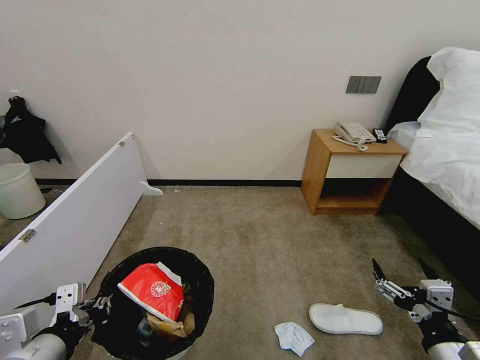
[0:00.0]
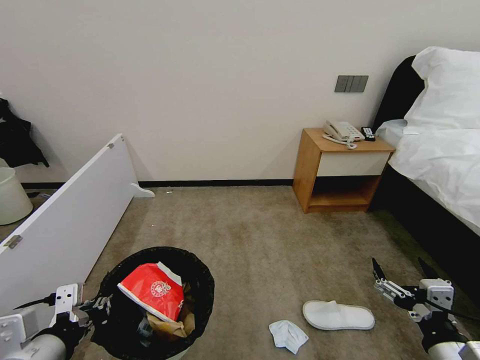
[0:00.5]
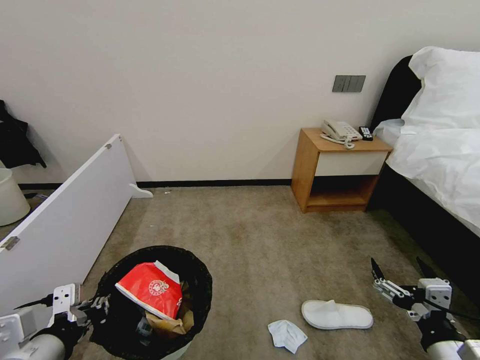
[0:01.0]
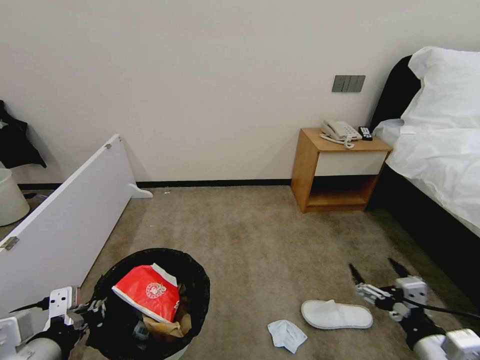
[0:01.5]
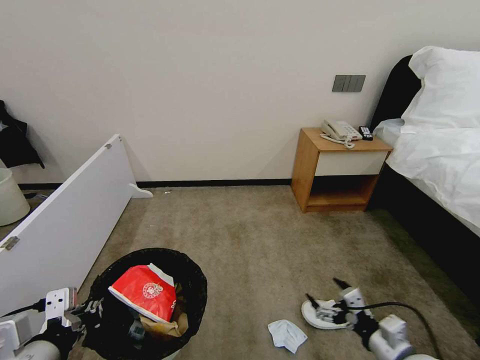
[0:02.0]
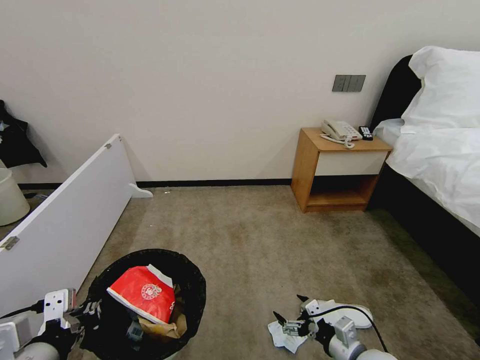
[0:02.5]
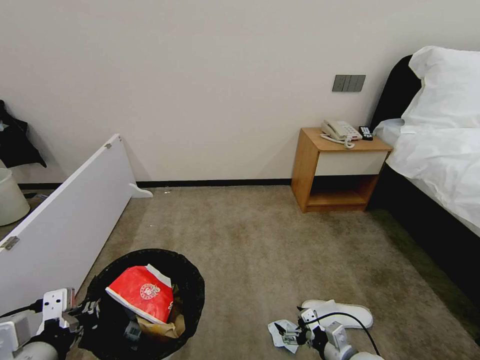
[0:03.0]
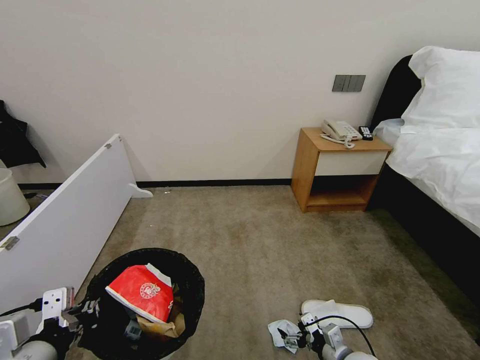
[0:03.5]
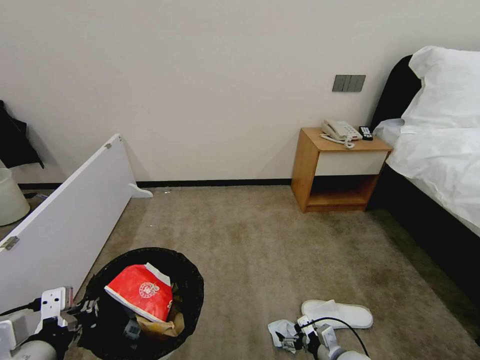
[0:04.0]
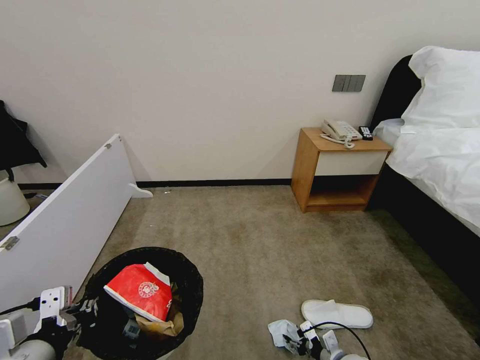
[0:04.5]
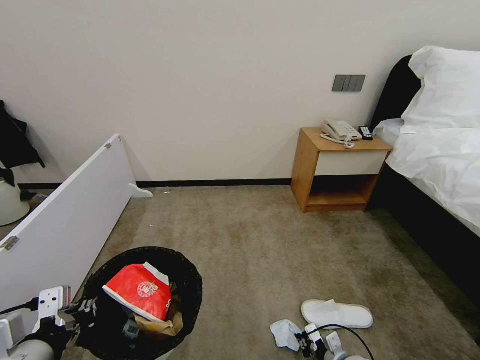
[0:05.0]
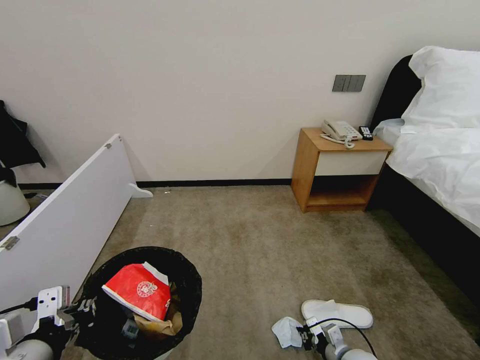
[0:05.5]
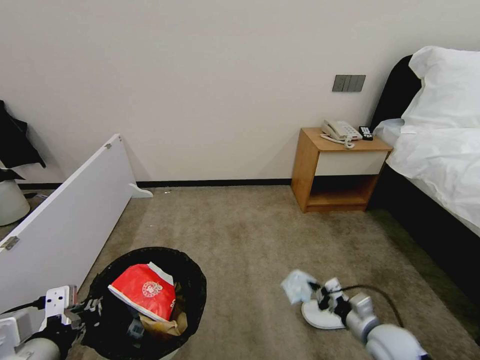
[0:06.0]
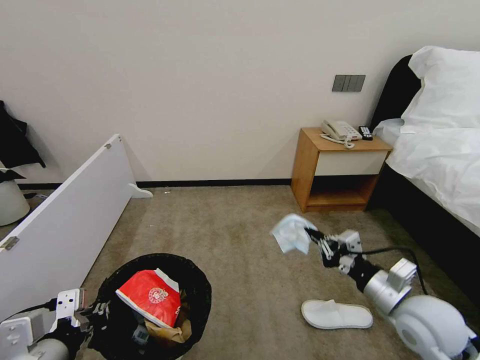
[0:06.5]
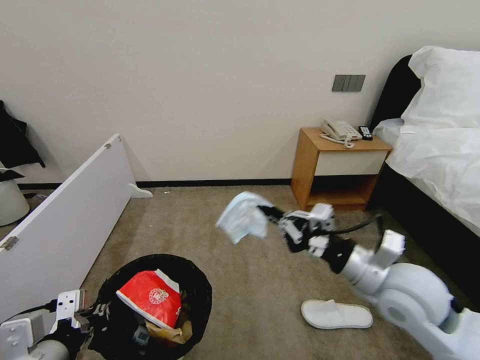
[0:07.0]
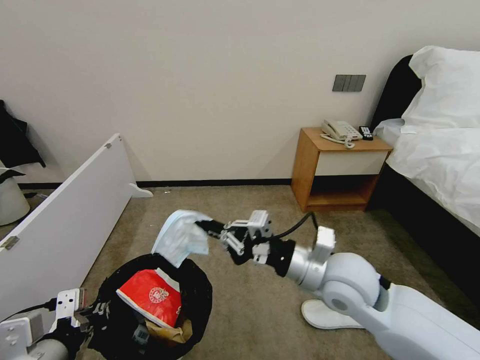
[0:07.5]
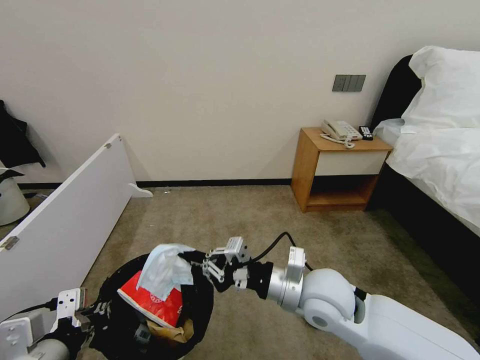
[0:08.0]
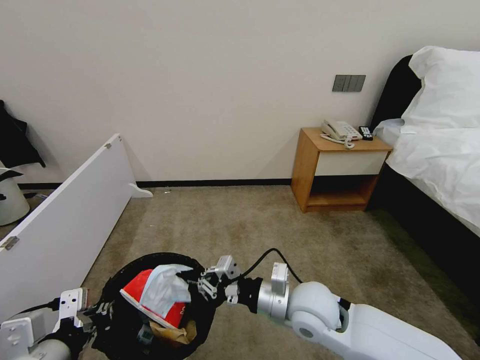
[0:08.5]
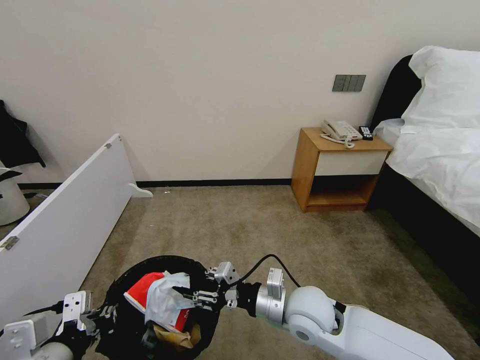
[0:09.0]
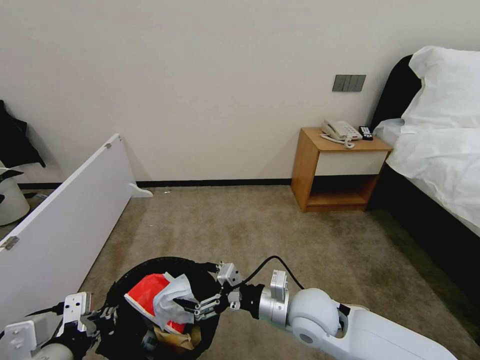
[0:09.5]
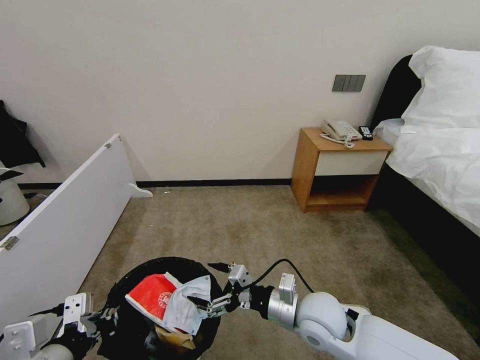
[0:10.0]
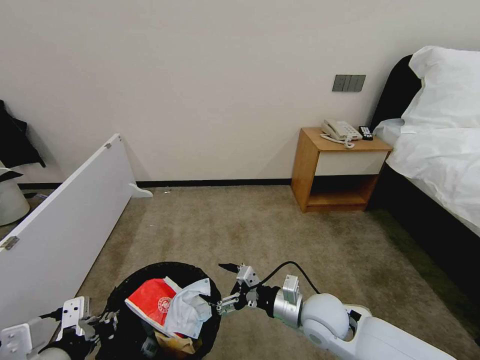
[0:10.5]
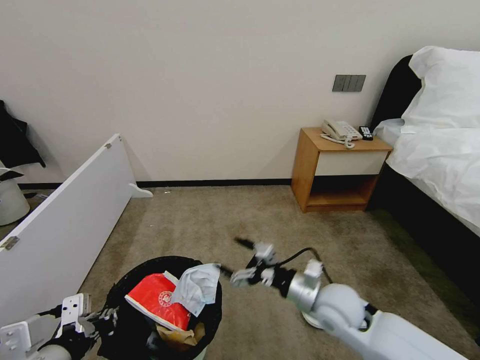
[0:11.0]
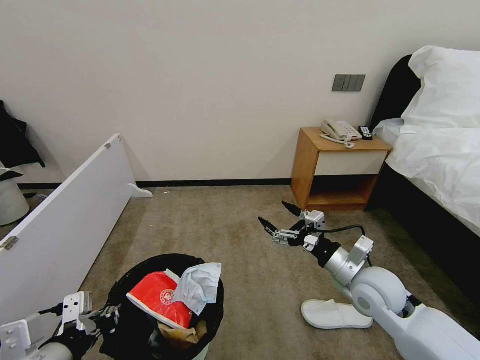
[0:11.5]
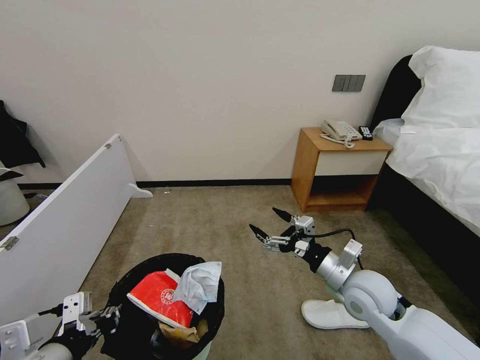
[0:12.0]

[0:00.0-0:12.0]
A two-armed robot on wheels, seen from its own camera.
Task of the whole recording: Pick up the trash bin, then pick up the garbage from the floor and place it into the trash bin.
0:00.0 to 0:02.0: The right gripper goes roughly 10 cm downward and forward.
0:02.0 to 0:04.0: The right gripper goes roughly 15 cm downward.
0:04.0 to 0:06.0: The right gripper moves upward and to the right, approximately 15 cm, and closes up.
0:06.0 to 0:08.0: The right gripper shifts about 25 cm to the left and upward.
0:08.0 to 0:10.0: The right gripper shifts about 10 cm downward, and opens.
0:10.0 to 0:12.0: The right gripper moves to the right, approximately 10 cm.

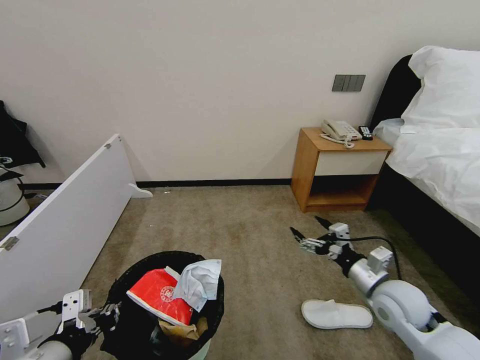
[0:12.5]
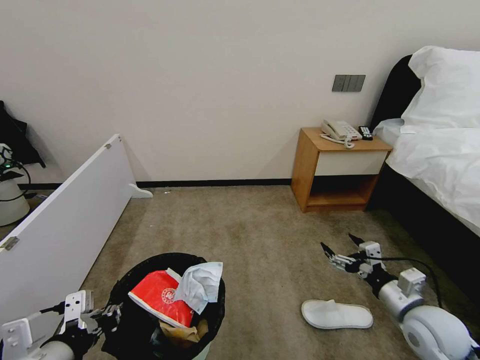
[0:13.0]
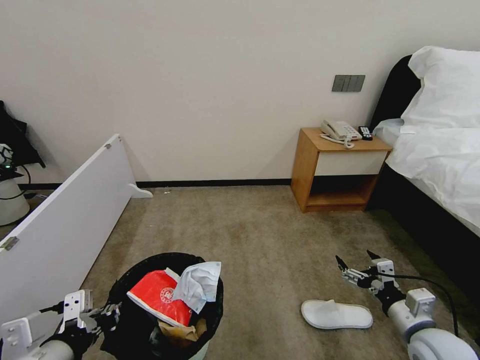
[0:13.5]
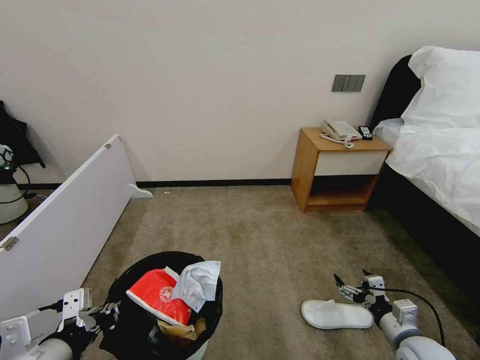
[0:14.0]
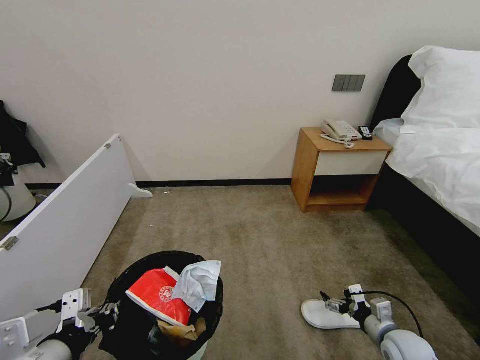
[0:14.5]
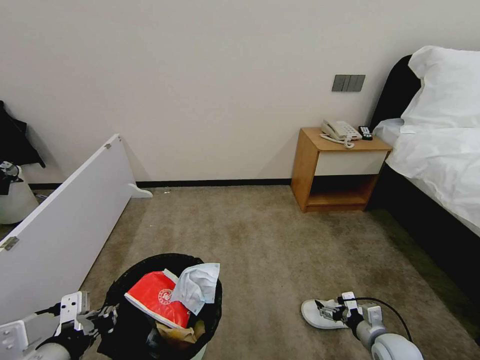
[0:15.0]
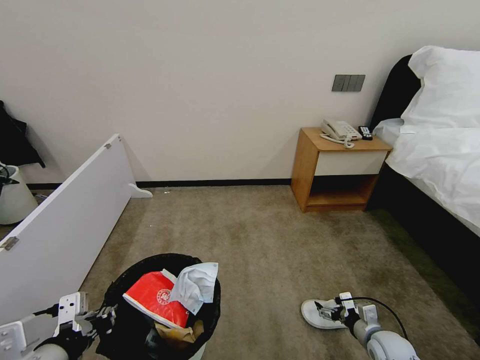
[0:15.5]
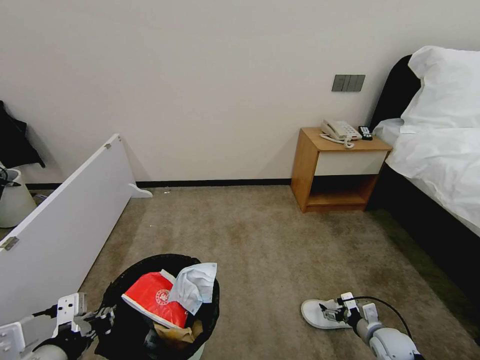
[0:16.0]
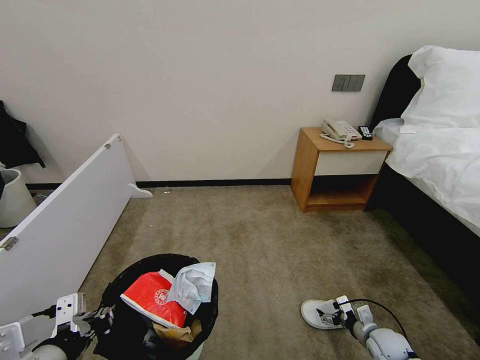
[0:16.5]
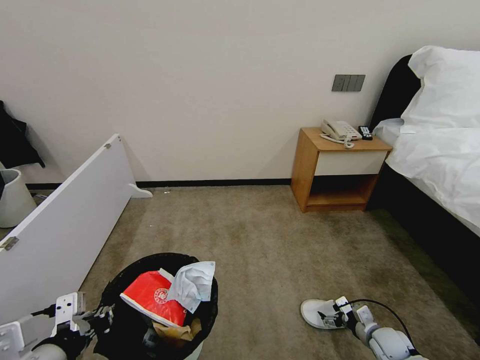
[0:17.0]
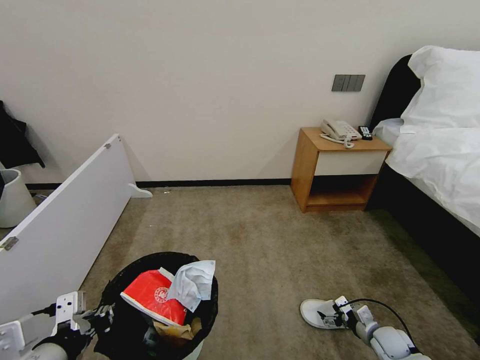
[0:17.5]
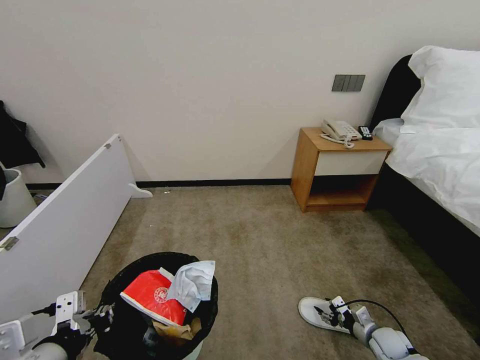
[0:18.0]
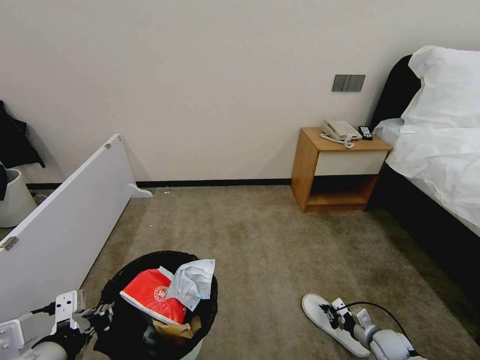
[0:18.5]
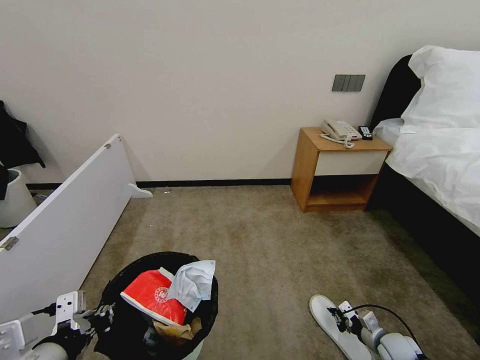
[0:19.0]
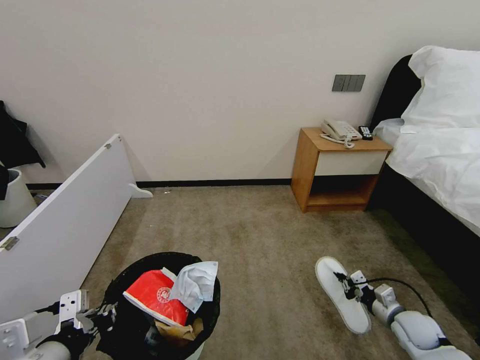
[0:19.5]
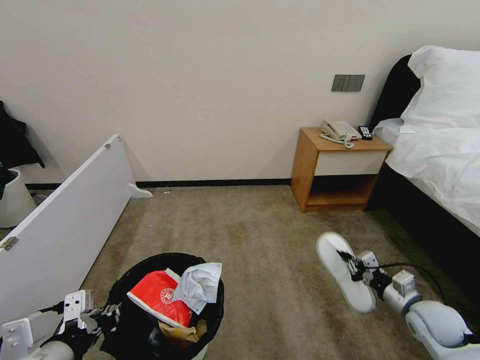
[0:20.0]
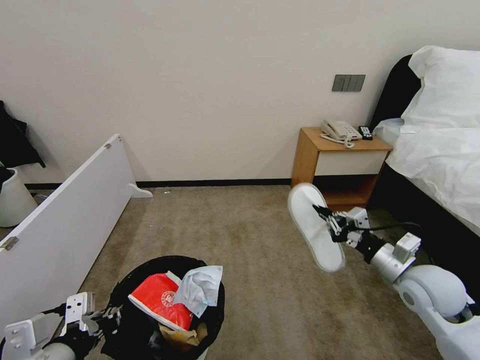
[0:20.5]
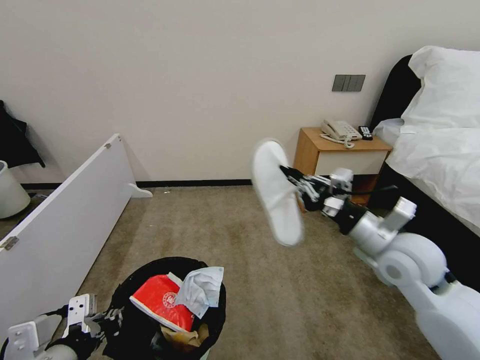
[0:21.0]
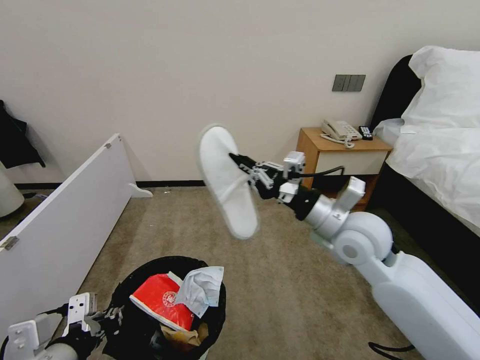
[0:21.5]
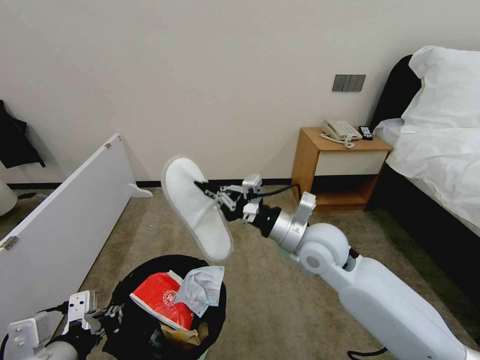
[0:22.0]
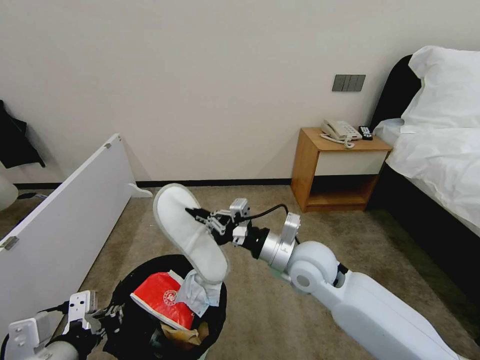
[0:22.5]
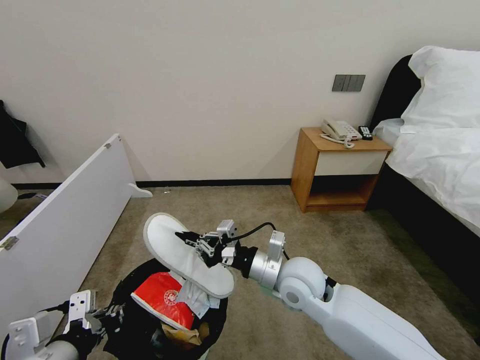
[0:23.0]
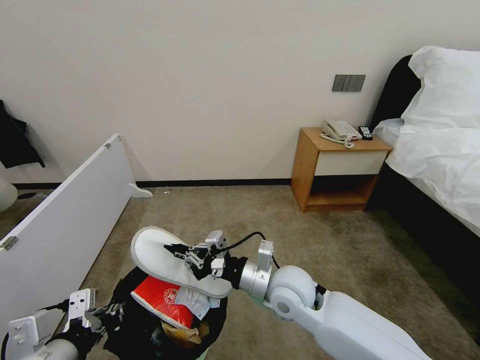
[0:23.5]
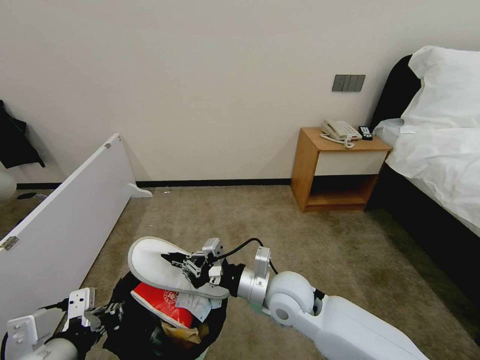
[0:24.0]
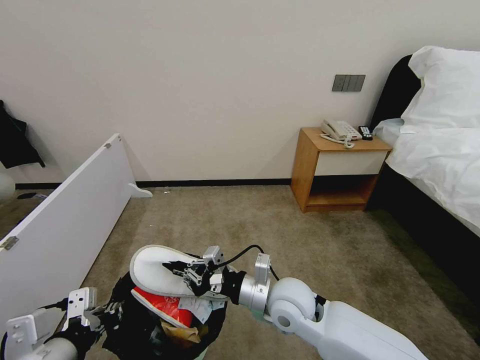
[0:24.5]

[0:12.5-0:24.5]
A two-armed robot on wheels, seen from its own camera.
Task of the whole recording: Pick up the trash bin, then pick up the garbage from the floor and place it into the trash bin.
0:12.5 to 0:14.5: The right gripper shifts approximately 15 cm downward and to the right.
0:14.5 to 0:16.5: The right gripper shifts roughly 10 cm downward.
0:16.5 to 0:18.5: The right gripper closes its fingers.
0:18.5 to 0:20.5: The right gripper shifts some 30 cm upward.
0:20.5 to 0:22.5: The right gripper moves to the left, roughly 25 cm.
0:22.5 to 0:24.5: The right gripper moves downward, about 5 cm.

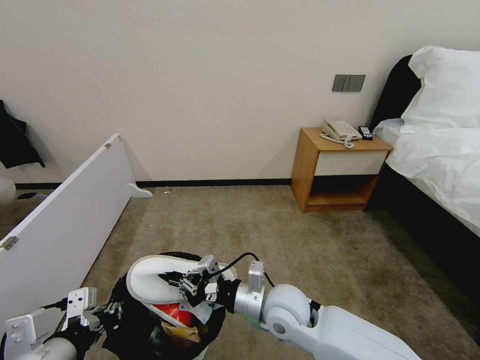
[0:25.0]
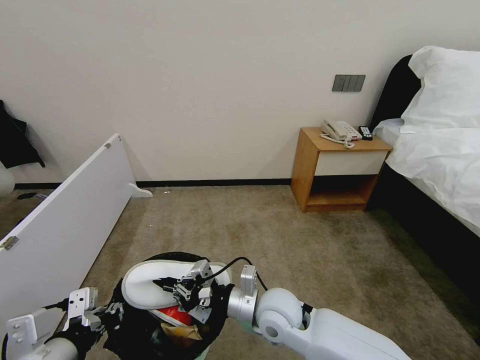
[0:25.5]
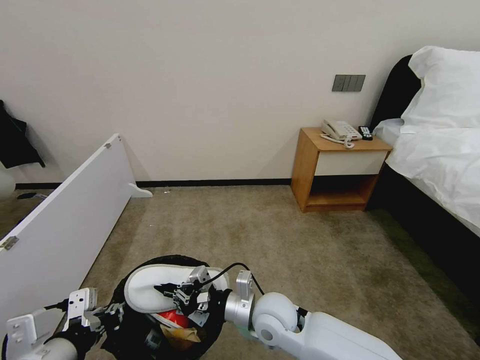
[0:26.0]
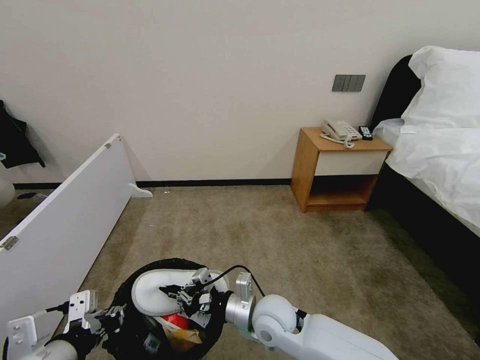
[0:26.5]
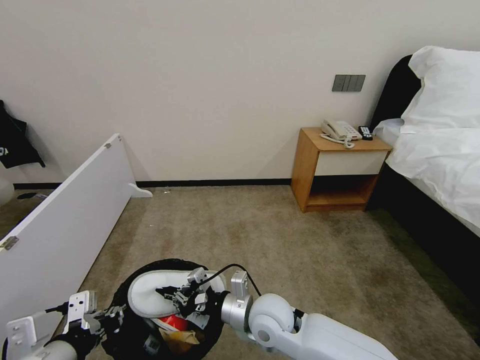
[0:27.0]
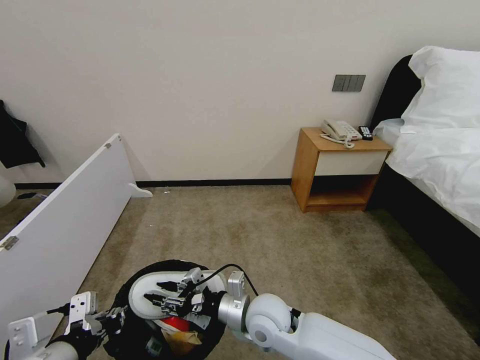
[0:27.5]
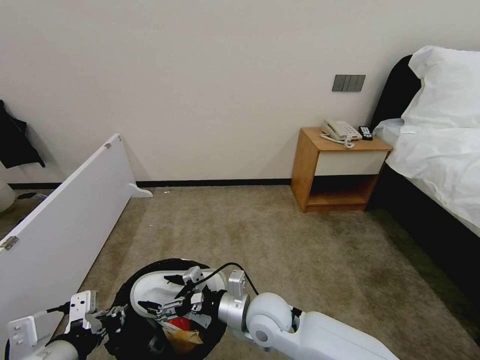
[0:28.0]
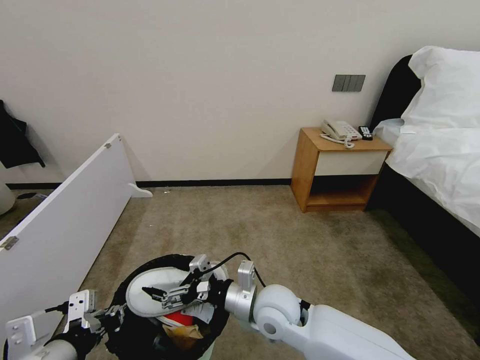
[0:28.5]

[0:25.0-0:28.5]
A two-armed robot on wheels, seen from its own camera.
Task of the whole recording: Pick up the trash bin, then pick up the garbage from the floor and place it into the trash bin.
0:25.0 to 0:27.0: The grippers make only small movements.
0:27.0 to 0:28.5: The right gripper opens its fingers.
